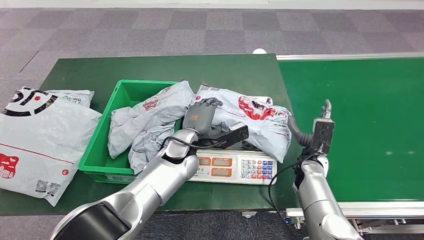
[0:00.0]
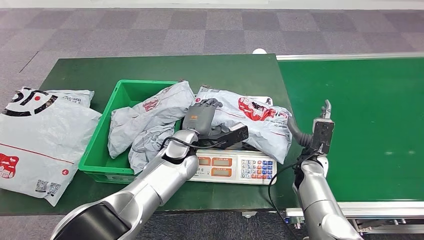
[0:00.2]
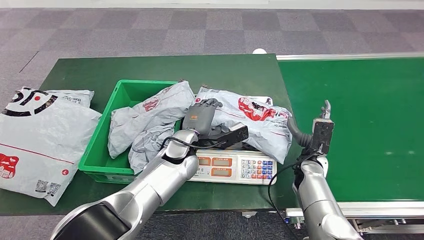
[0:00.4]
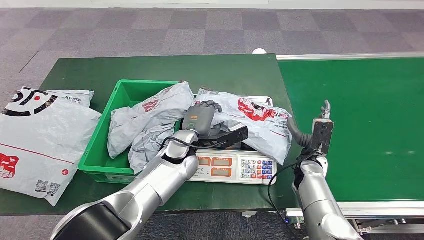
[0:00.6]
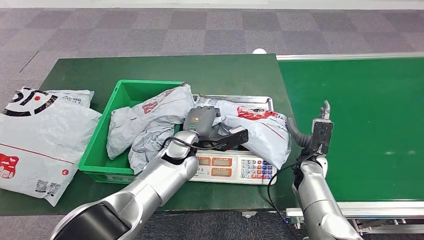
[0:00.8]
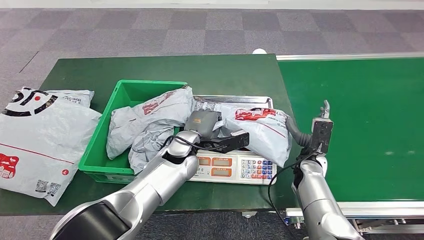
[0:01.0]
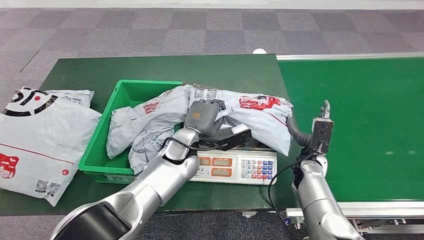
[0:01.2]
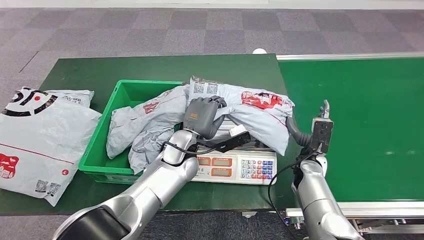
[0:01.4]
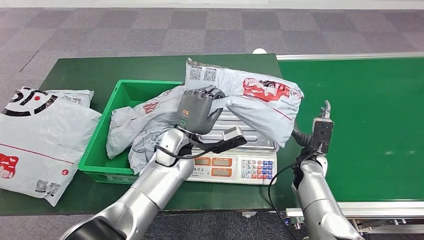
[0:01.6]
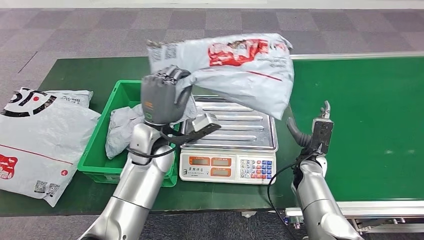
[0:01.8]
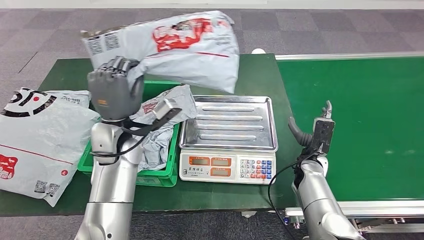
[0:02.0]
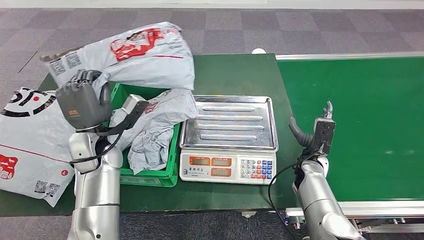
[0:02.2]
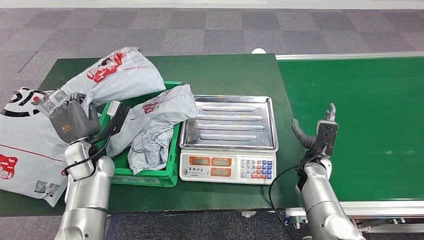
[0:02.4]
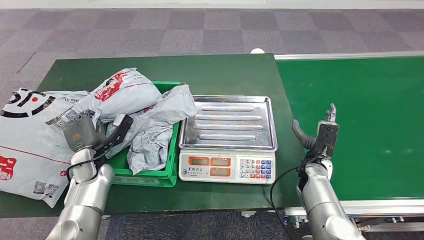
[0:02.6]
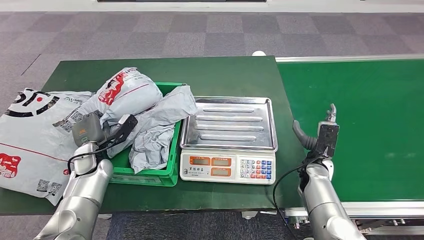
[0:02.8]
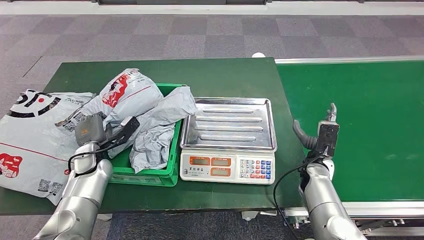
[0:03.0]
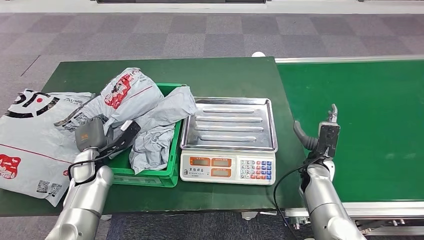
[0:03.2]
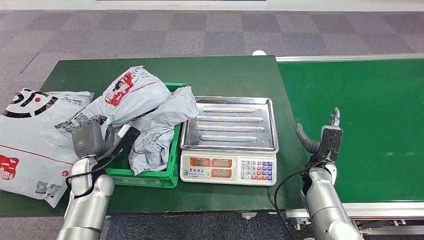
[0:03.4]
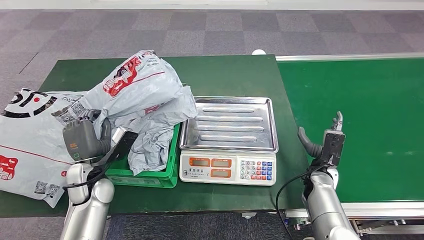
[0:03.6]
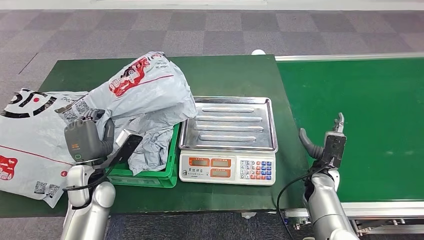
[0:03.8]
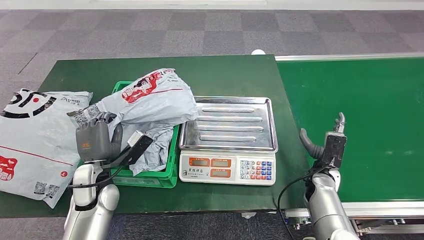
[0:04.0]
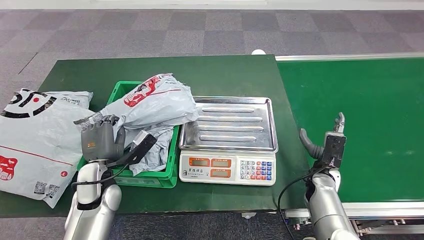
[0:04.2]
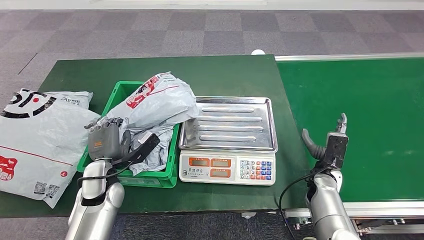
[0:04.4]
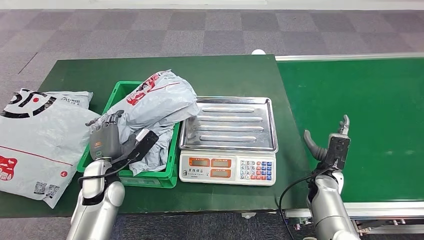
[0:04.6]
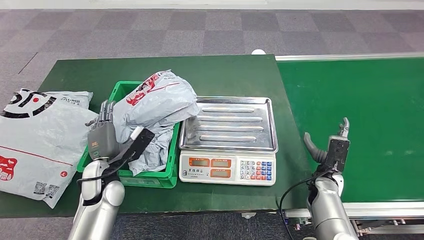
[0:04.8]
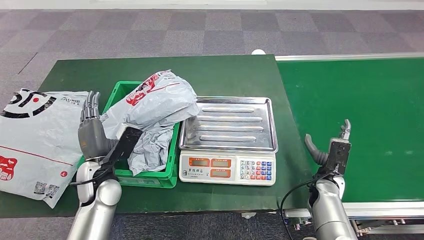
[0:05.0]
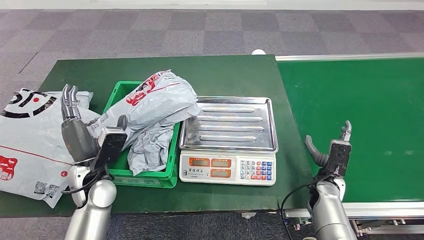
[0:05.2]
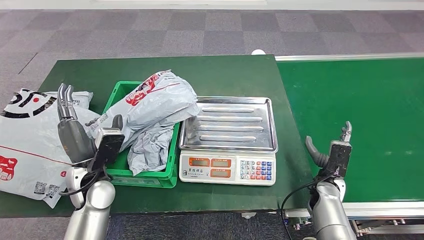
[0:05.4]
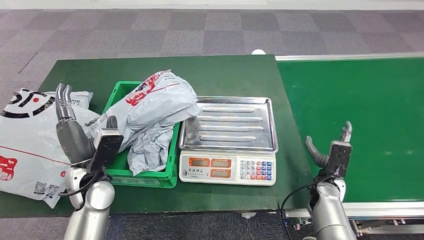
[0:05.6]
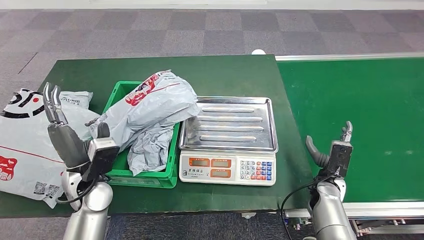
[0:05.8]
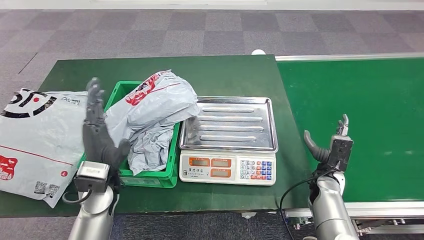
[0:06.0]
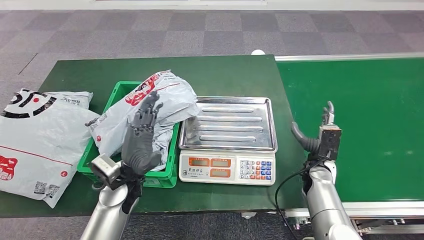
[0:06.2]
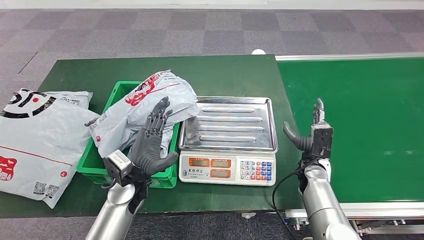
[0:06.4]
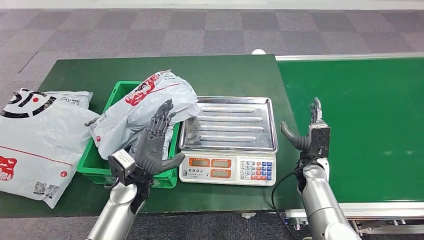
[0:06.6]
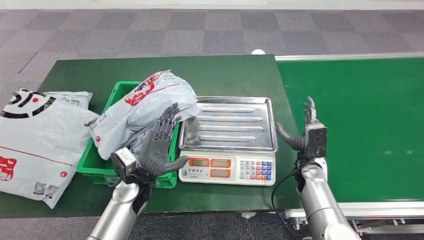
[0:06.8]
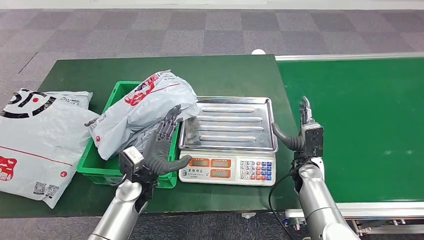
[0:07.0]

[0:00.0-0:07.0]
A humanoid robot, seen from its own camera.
Step, 0:00.0 to 0:02.0: Pick up the parcel from the inbound machine.
Step, 0:02.2 to 0:07.0: Place the parcel into the delivery box.
0:00.0 to 0:01.4: The hands stay close to where they were, moving slightly.
0:05.6 to 0:07.0: The left hand moves to the right and downward, about 10 cm. The right hand travels to the left by roughly 5 cm.
